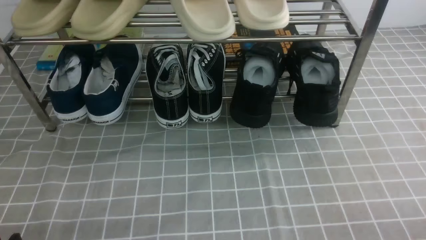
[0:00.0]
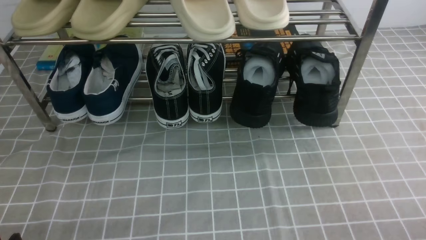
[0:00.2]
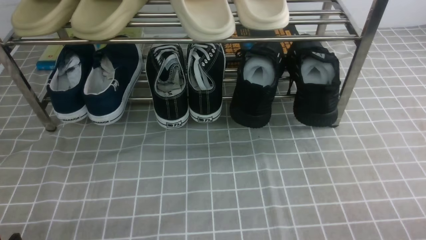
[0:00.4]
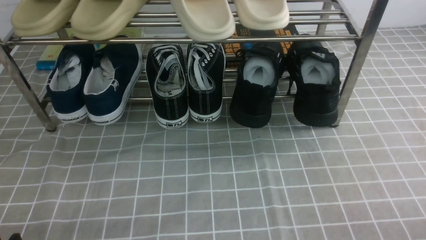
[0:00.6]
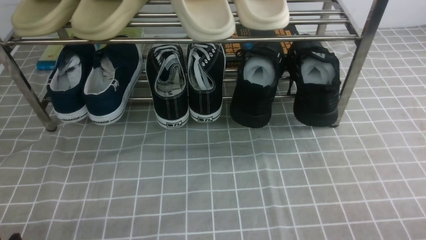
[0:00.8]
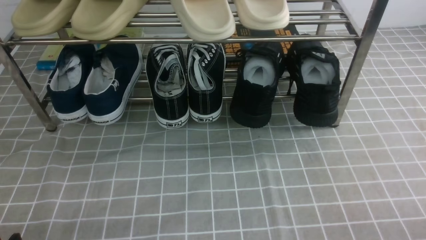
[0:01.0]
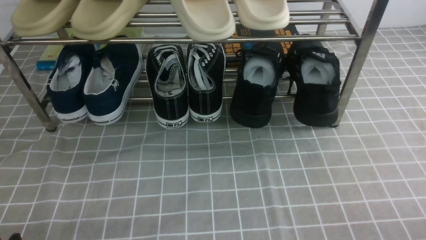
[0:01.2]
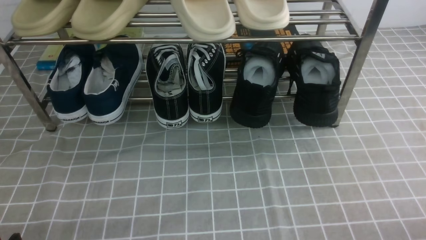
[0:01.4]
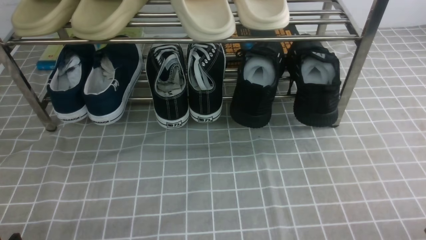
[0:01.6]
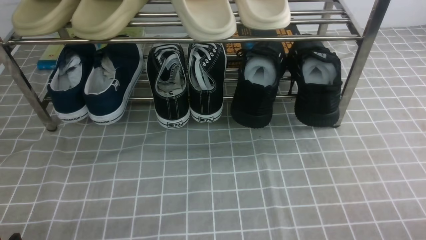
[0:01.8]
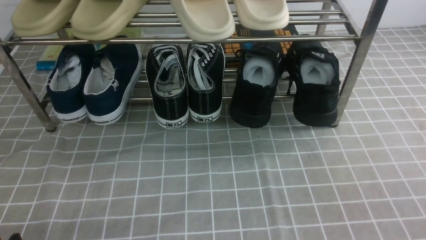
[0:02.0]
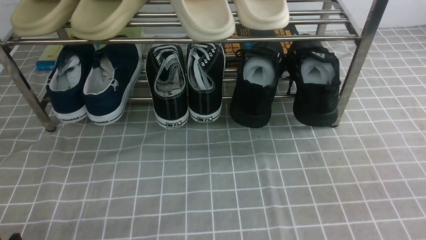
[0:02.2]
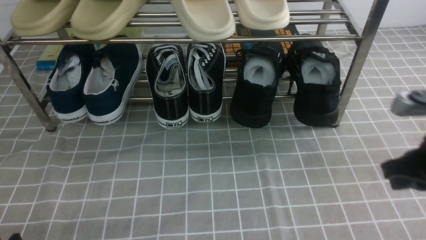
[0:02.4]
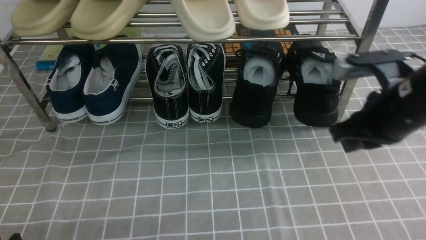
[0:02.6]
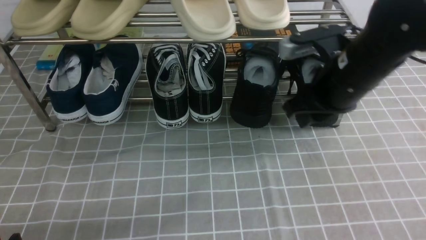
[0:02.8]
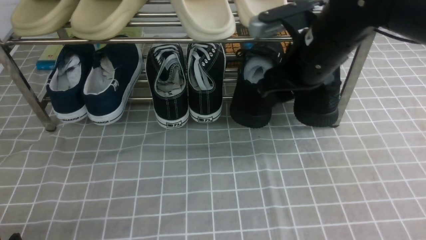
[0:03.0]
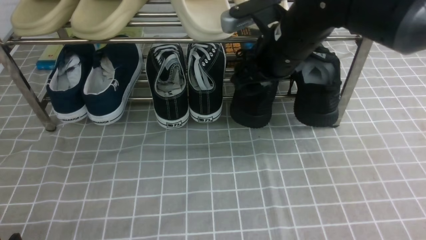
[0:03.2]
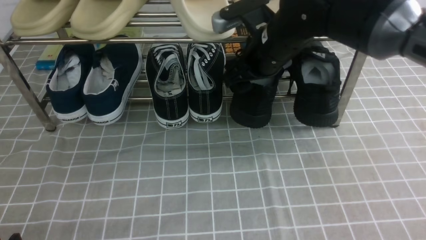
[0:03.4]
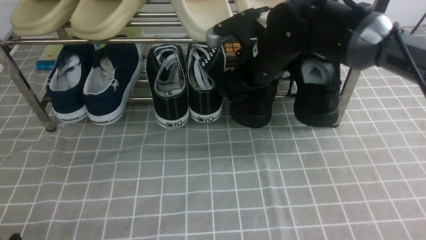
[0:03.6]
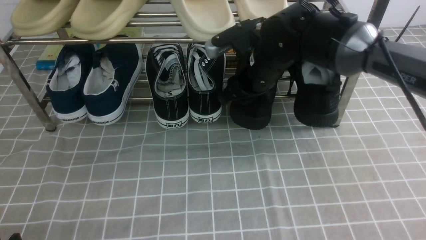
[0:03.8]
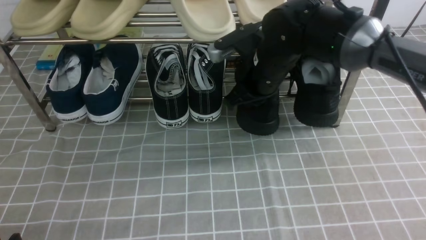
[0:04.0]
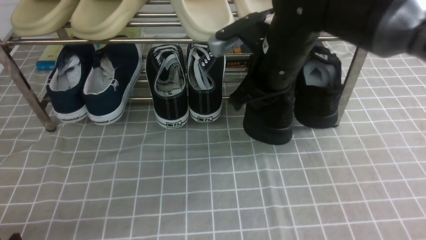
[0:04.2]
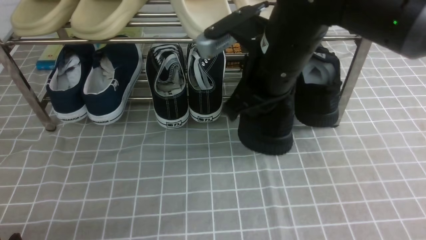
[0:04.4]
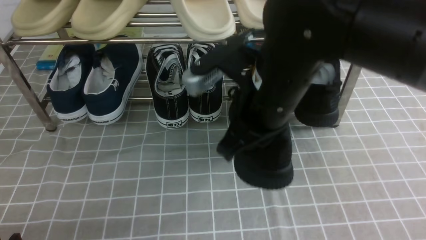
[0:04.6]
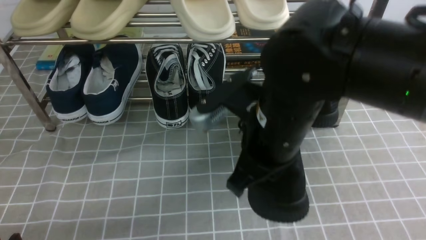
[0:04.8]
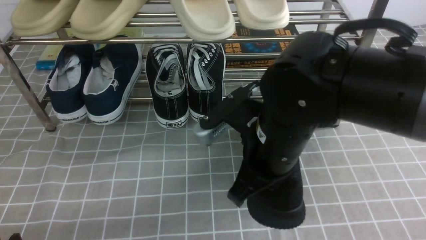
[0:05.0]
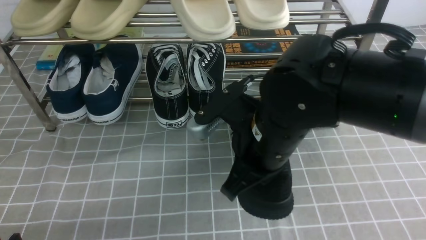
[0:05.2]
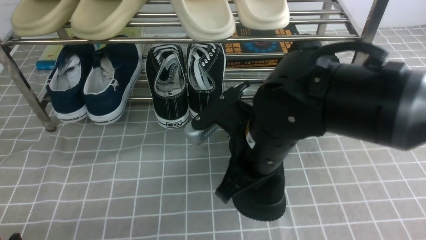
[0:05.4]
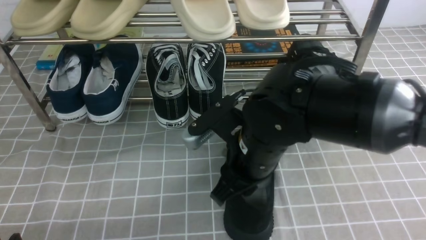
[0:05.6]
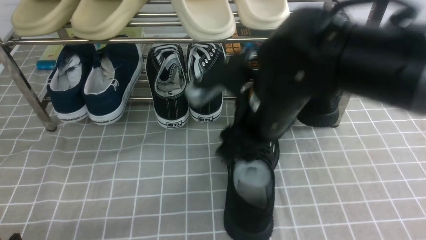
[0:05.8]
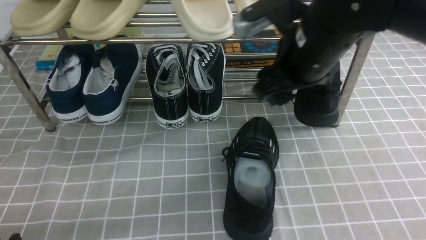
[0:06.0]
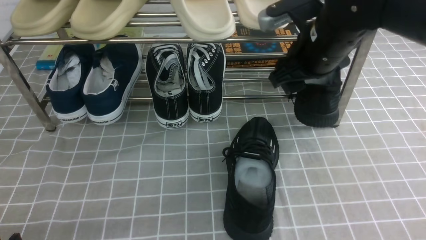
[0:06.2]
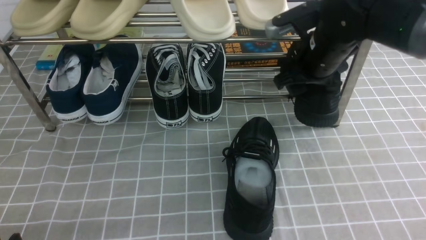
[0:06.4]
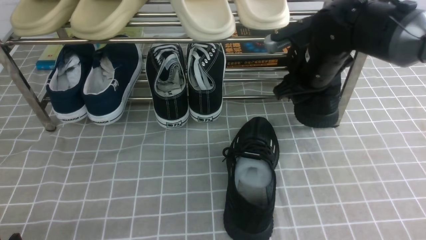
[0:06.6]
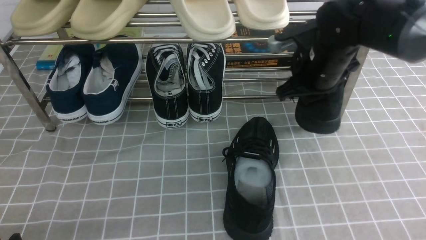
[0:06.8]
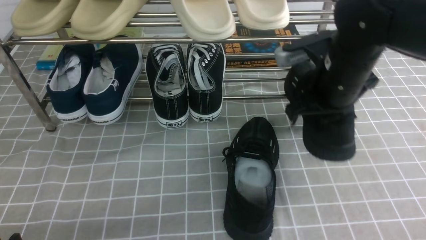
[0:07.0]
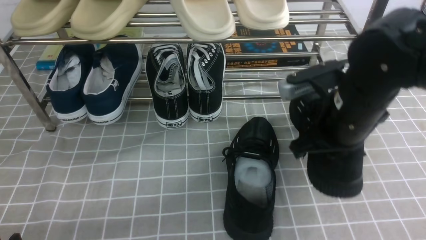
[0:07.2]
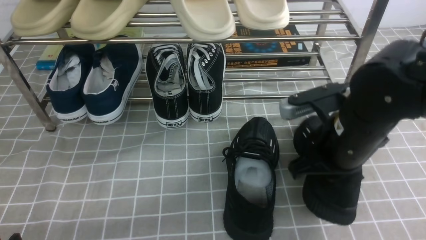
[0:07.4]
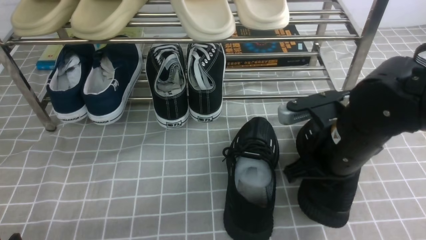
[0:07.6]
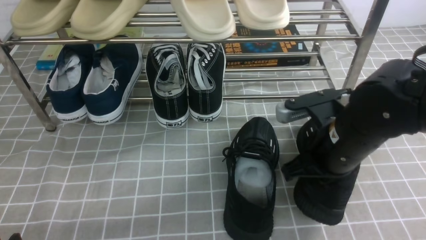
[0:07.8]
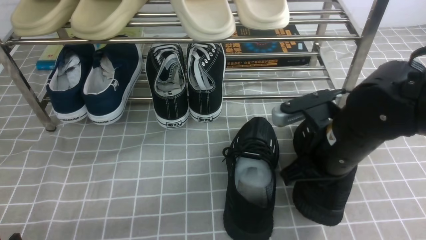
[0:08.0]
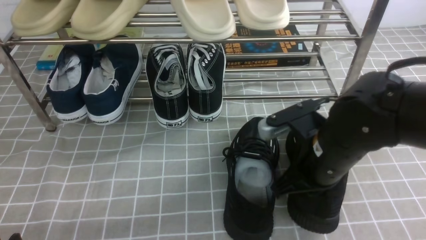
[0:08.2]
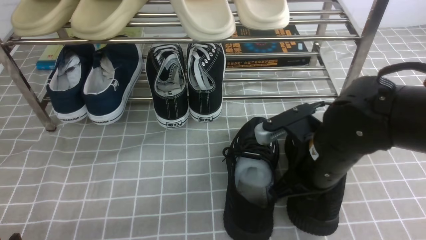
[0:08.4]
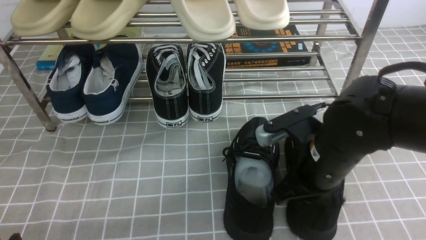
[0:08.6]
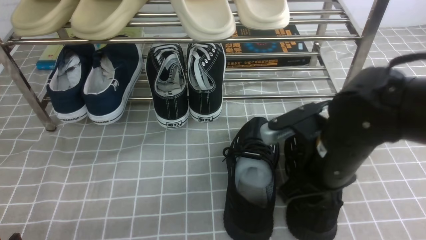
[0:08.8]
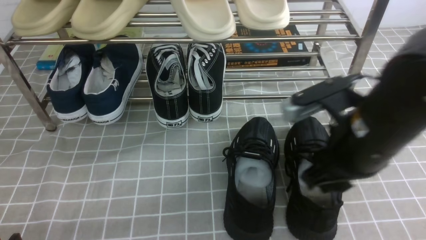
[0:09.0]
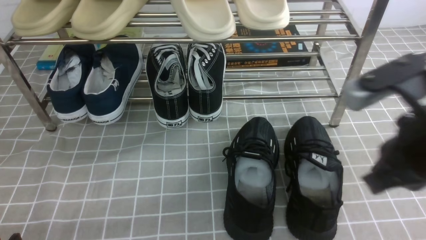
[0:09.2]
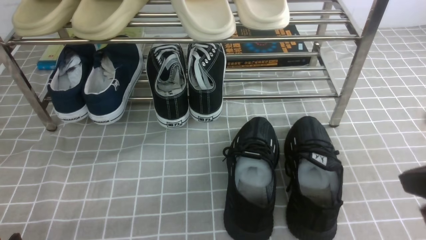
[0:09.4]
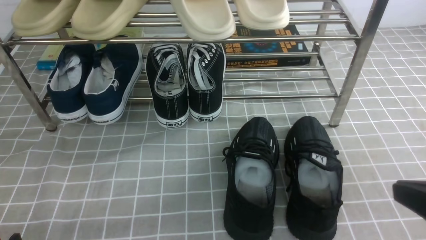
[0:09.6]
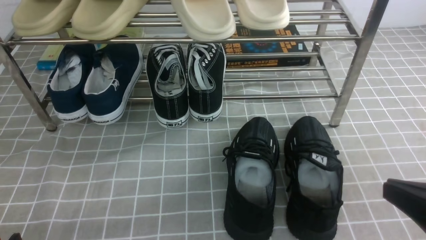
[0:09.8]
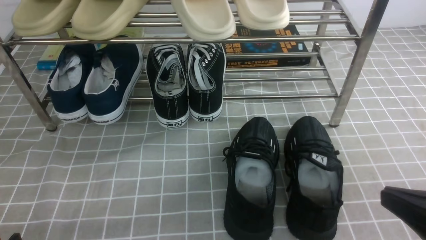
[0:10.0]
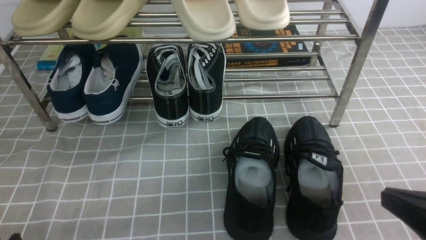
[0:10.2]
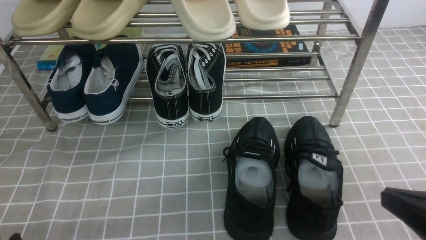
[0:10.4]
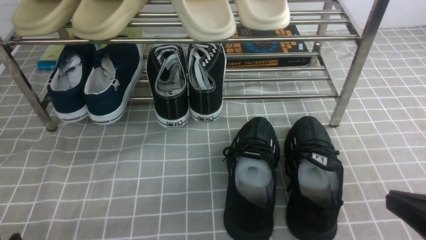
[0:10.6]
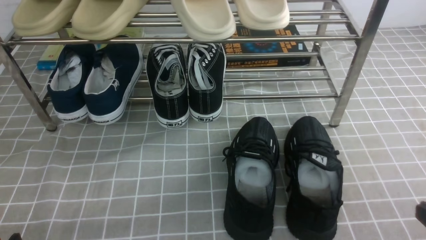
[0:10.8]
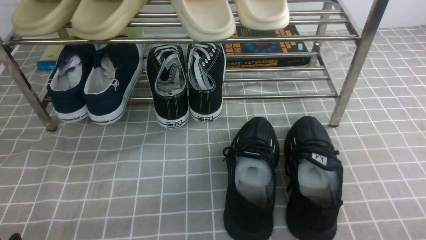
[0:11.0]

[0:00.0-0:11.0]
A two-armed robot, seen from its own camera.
Step, 0:00.0 to 0:04.0: use the right arm to clamp a shoe on the right side of the shoe rack.
Step, 0:04.2 to 0:05.8: use the right arm to take out the clamped shoe from the shoe rack and put it down.
Step, 0:06.0 to 0:06.8: use the right arm to clamp a shoe on the right side of the shoe rack.
Step, 0:07.0 to 0:09.0: use the right arm to take out the clamped shoe from the shoe rack and put it down.
0:01.6 to 0:03.2: The right gripper goes about 40 cm forward, to the left and upward, and opens up.
0:03.2 to 0:04.8: The right gripper shifts about 15 cm backward, and closes its fingers.
0:04.8 to 0:06.2: The right gripper travels forward and to the right by approximately 15 cm, and opens.
0:06.2 to 0:07.8: The right gripper is displaced backward and downward by approximately 15 cm, and closes its fingers.
0:07.8 to 0:09.4: The right gripper goes some 20 cm backward, to the right and upward, and opens, then closes again.
0:09.4 to 0:11.0: The right gripper travels downward, to the right and backward by approximately 15 cm.

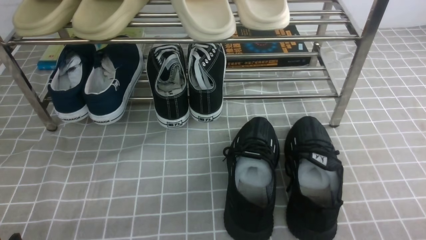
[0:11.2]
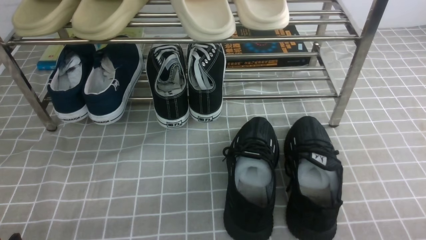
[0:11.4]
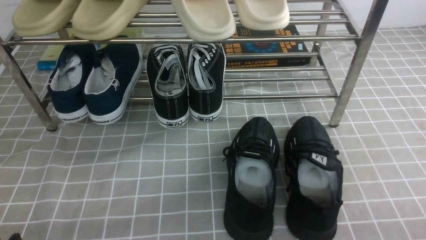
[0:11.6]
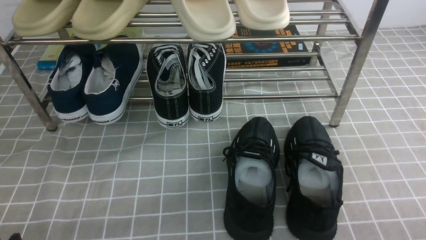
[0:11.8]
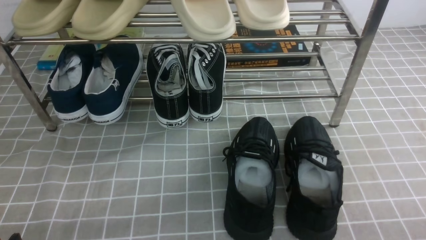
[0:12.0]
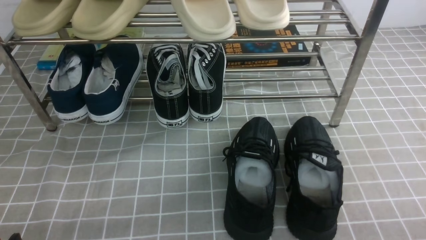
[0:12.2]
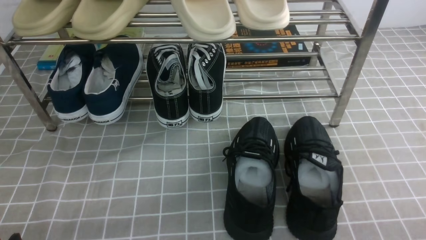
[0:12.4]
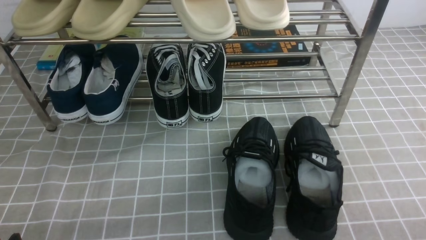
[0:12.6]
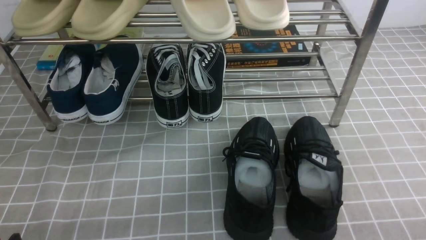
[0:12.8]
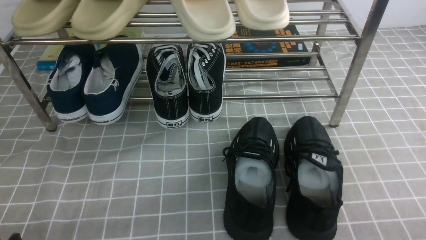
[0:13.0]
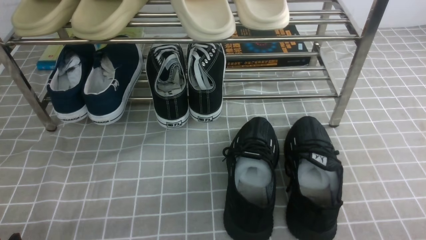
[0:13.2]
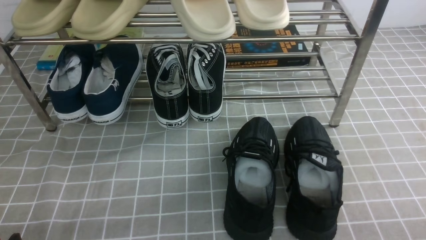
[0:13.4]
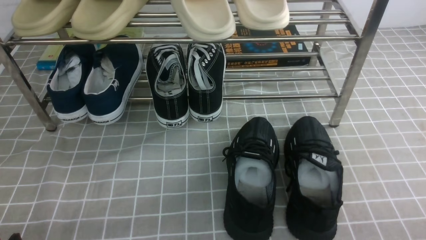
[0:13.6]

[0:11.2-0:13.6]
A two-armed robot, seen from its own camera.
0:12.4 to 0:13.6: Both grippers stay about where they are.

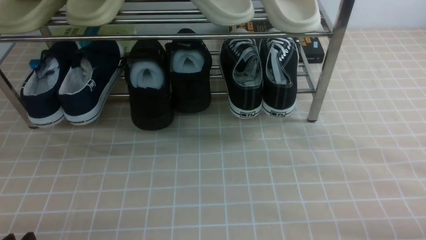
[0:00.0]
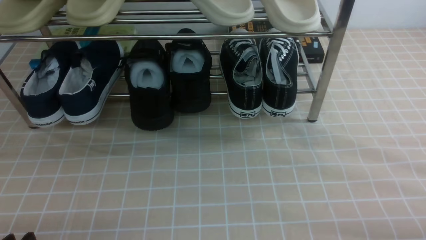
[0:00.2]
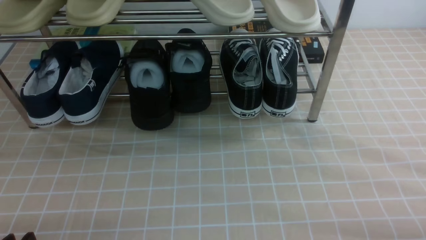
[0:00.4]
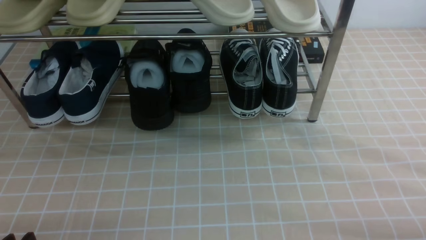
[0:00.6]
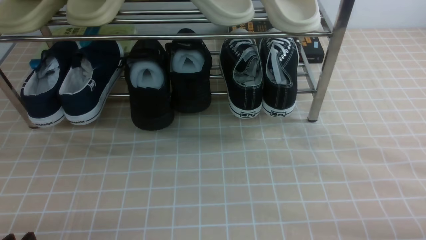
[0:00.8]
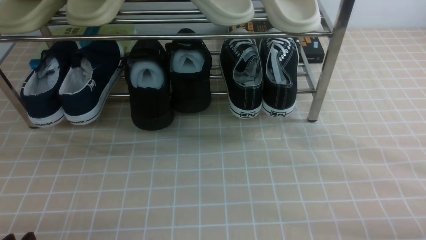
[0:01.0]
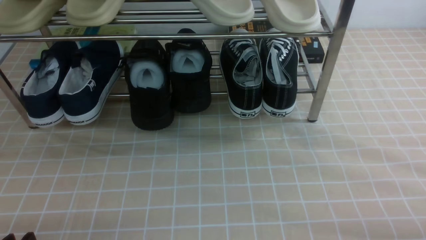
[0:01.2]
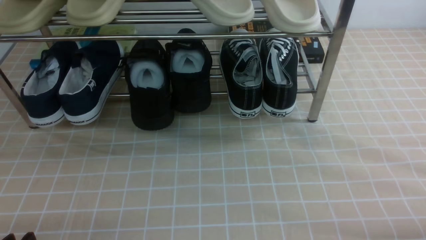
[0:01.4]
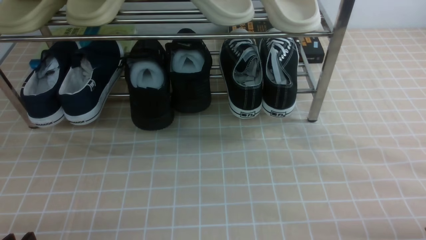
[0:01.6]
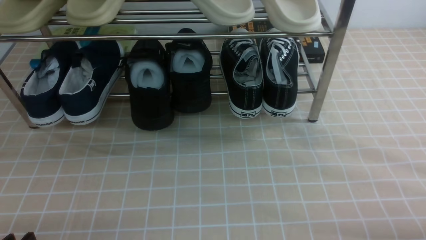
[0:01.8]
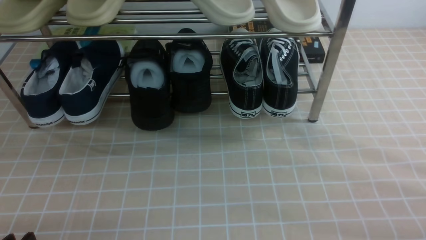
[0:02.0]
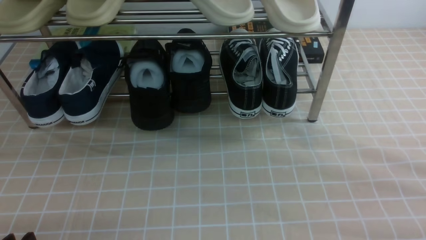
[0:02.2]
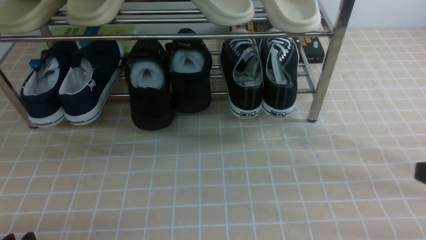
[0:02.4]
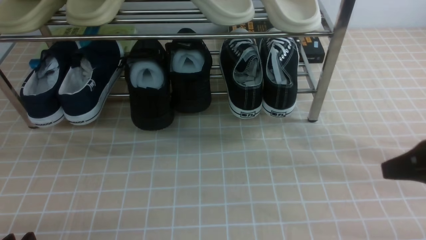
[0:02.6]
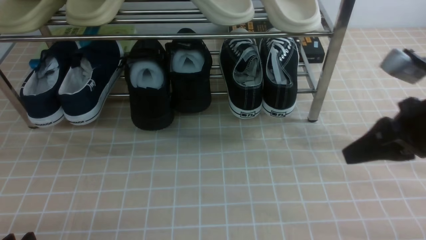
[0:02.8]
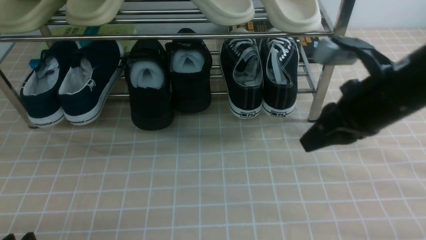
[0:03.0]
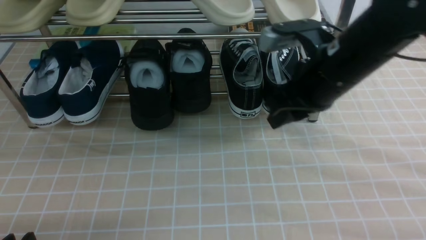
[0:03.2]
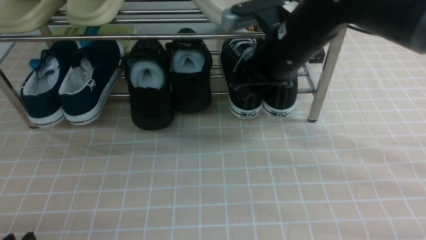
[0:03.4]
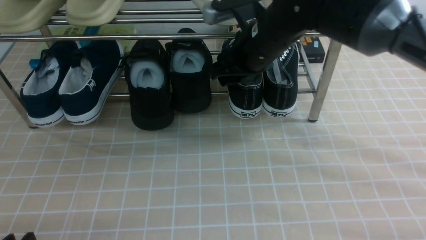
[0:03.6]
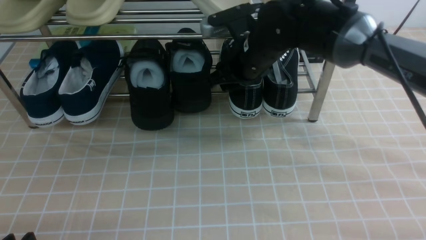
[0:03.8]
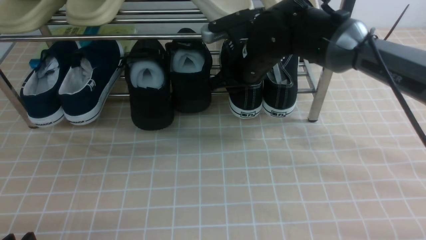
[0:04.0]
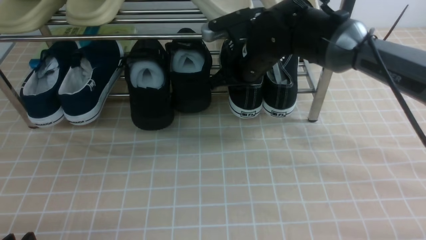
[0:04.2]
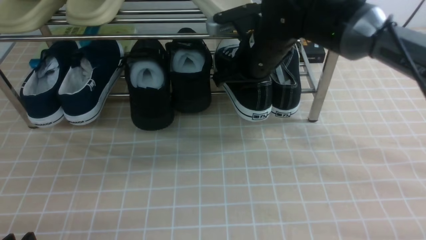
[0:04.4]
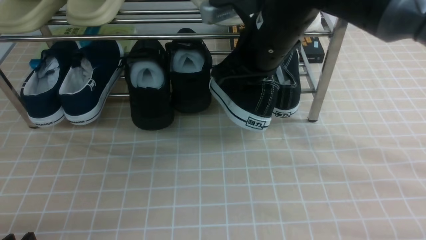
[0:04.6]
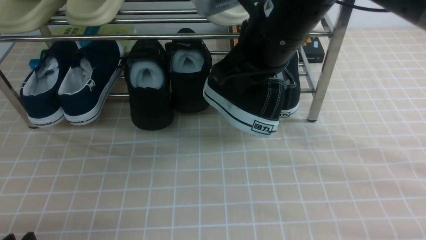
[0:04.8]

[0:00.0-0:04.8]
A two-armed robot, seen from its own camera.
Step, 0:00.0 to 0:04.0: use the right arm to clamp a shoe on the right side of the shoe rack.
0:01.6 to 0:03.2: The right gripper goes roughly 35 cm forward, to the left and upward, and closes, then reopens.
0:03.2 to 0:04.8: The right gripper heads to the left and upward, covering roughly 10 cm, and closes its fingers.
